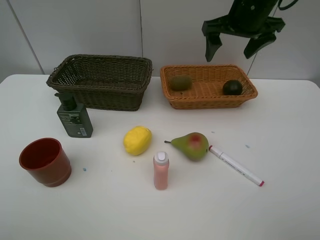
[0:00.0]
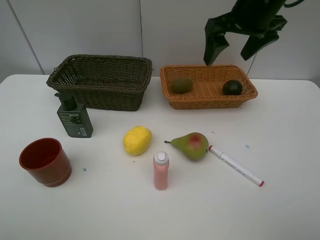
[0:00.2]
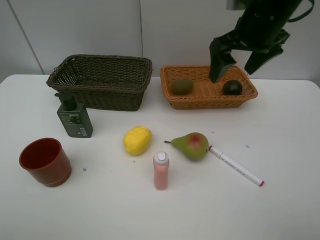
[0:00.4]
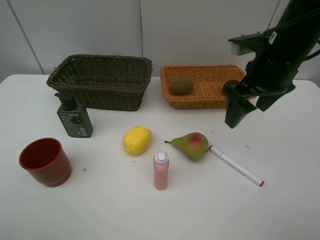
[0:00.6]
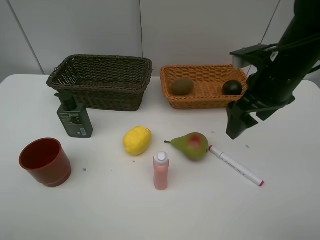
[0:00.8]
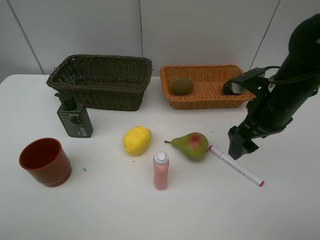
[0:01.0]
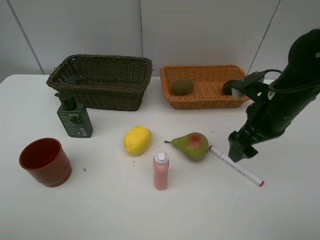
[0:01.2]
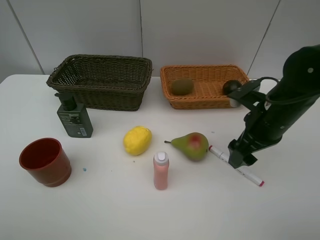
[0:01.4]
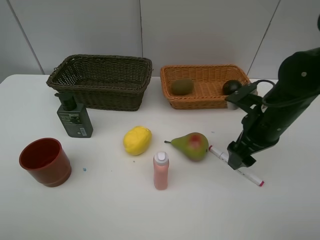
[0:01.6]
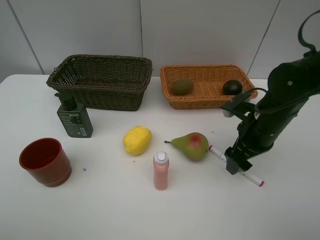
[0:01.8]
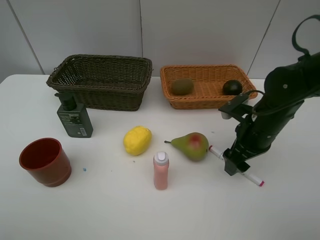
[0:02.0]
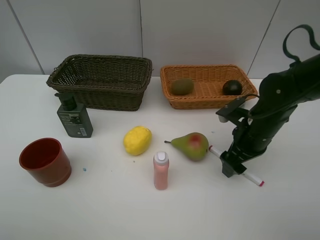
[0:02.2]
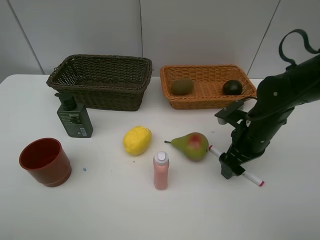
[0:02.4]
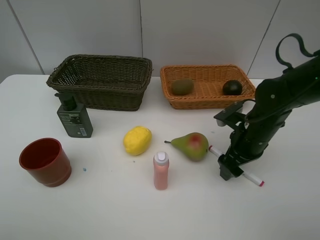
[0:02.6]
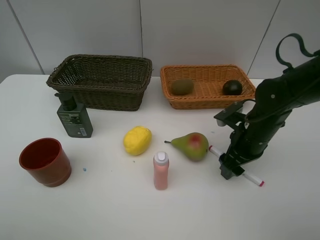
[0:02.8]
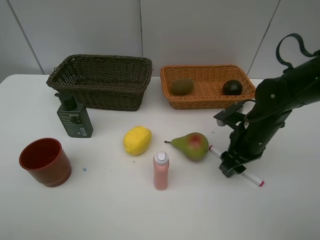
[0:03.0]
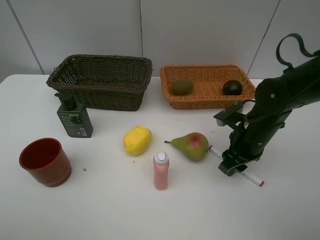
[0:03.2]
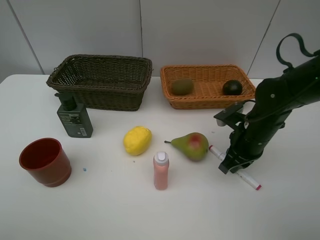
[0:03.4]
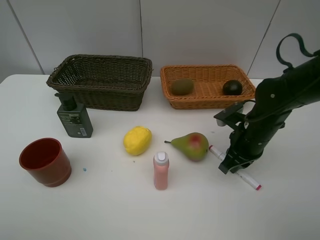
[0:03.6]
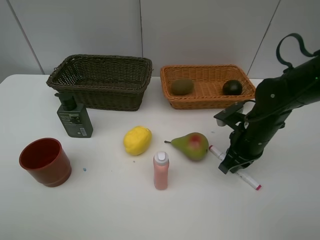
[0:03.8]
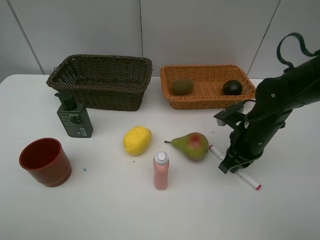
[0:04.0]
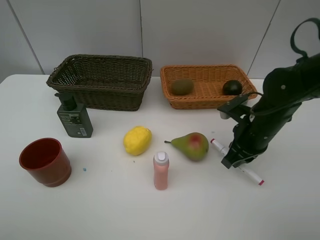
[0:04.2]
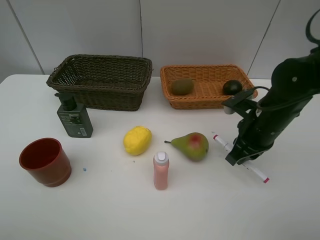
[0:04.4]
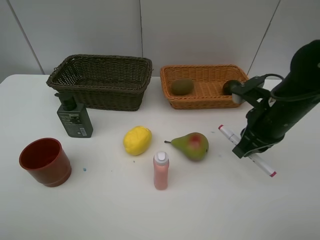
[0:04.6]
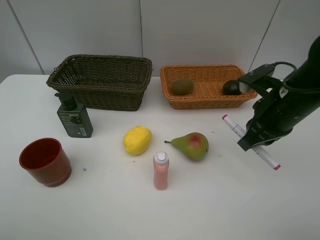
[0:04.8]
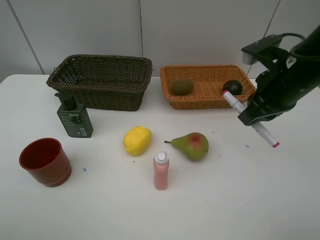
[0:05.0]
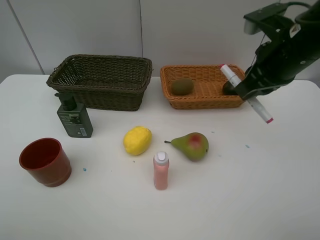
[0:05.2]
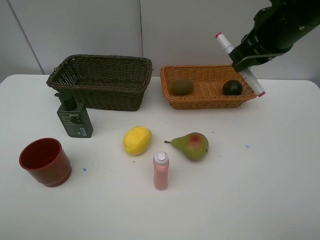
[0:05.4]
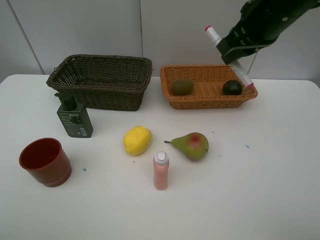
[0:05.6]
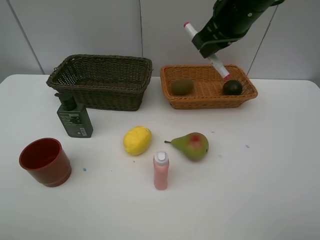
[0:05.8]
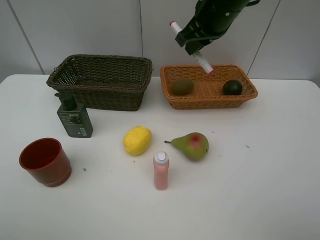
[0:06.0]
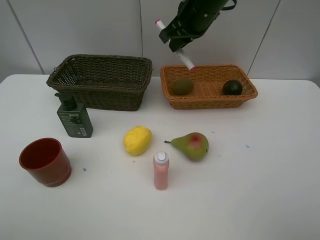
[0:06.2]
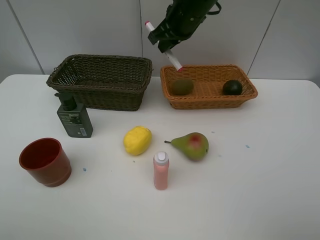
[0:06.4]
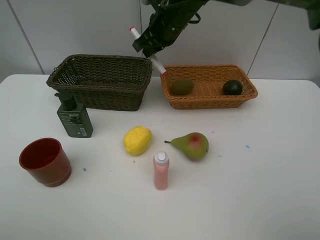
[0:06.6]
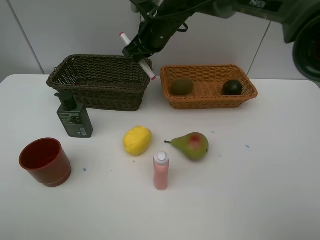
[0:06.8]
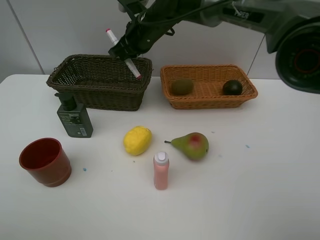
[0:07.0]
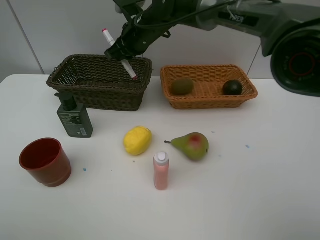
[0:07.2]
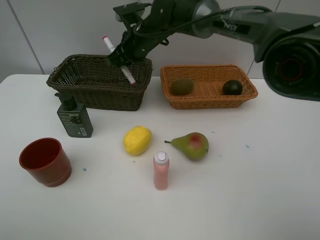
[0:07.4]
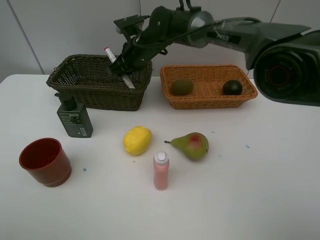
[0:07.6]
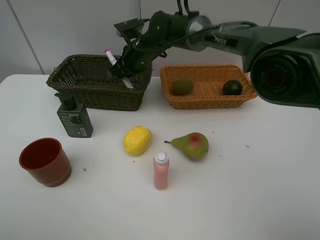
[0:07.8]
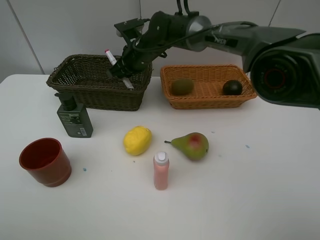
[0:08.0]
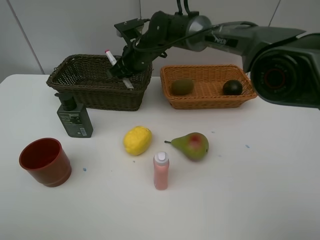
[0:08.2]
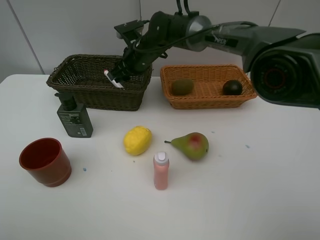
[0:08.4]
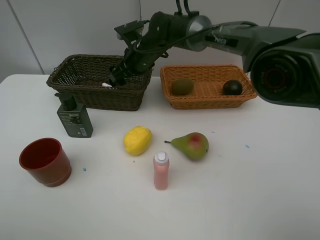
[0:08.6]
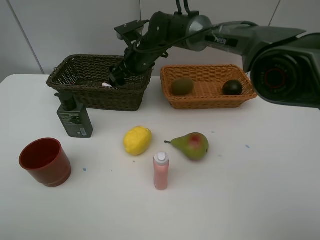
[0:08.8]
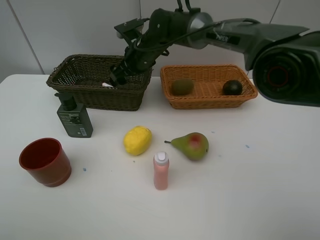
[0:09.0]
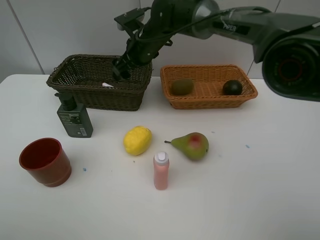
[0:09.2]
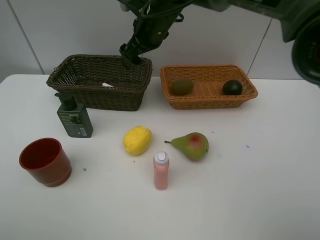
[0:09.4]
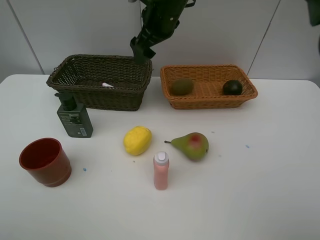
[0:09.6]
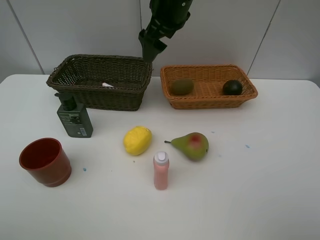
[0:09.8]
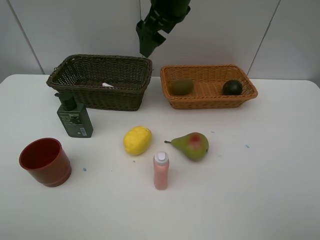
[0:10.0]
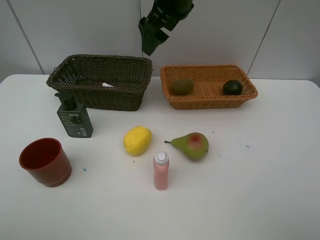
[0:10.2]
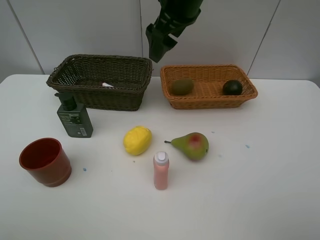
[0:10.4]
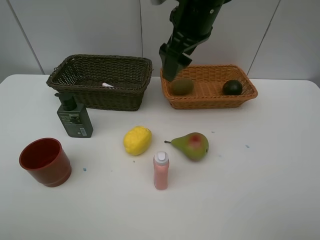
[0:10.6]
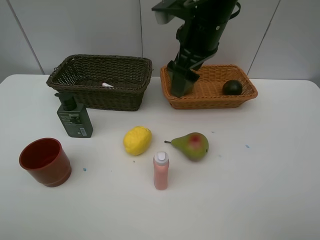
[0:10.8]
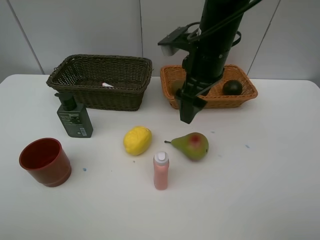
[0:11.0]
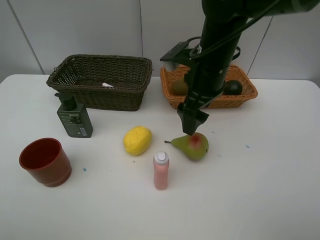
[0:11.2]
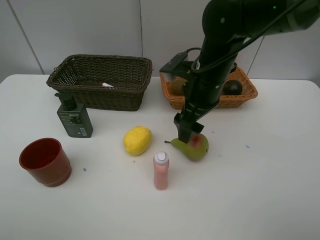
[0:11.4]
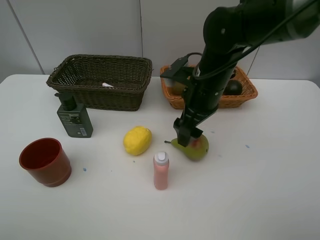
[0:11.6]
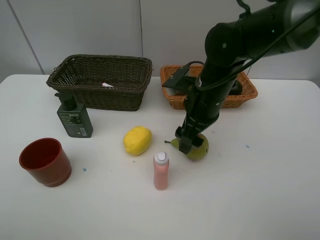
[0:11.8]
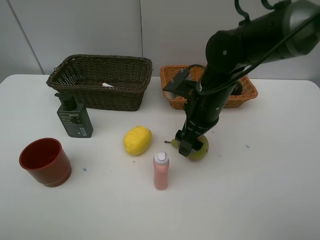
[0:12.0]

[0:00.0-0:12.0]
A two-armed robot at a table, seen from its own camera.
Task of the whole recording: Place multiple objects separately in different baskets.
Step, 0:00.0 to 0:04.4: Pick up the red cup with right gripper.
Step, 0:04.6 to 0:09.0: Place the red cup in the dark basket with right gripper.
0:00.0 to 0:01.6: The right gripper heads downward and backward, covering approximately 20 cm.
0:01.6 to 0:03.0: The right gripper goes approximately 5 cm downward, and closes its fingers.
0:03.0 to 0:04.4: The right gripper closes its fingers.
0:04.4 to 0:06.0: The right gripper is displaced upward, forward and to the left by roughly 20 cm.
0:06.0 to 0:07.6: The right gripper shifts some 20 cm to the left, downward and forward.
0:07.6 to 0:09.0: The right gripper opens.
0:09.0 to 0:10.4: The right gripper shifts approximately 20 cm upward, backward and to the right.
0:10.4 to 0:12.0: The right gripper travels downward and backward by roughly 20 cm.

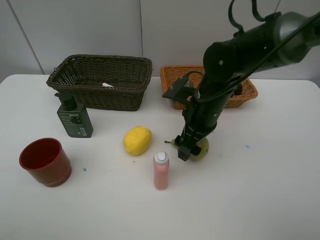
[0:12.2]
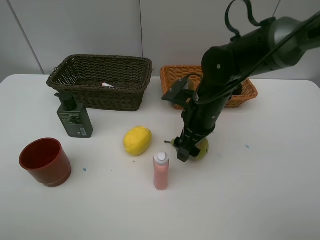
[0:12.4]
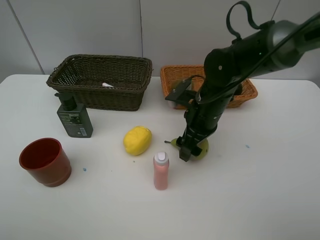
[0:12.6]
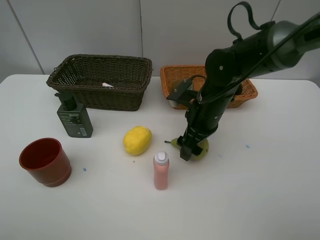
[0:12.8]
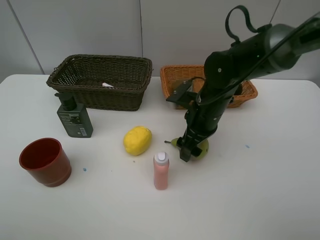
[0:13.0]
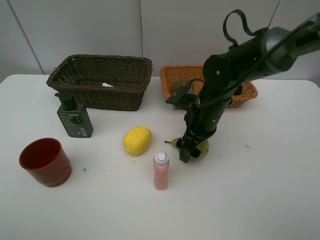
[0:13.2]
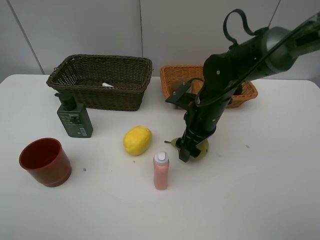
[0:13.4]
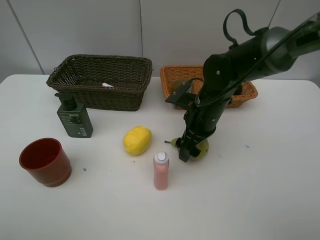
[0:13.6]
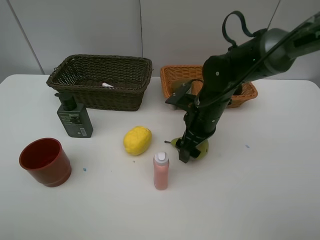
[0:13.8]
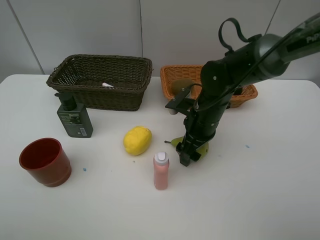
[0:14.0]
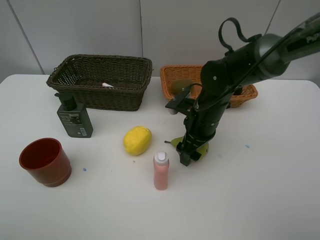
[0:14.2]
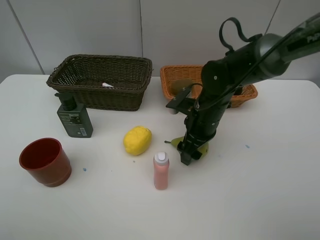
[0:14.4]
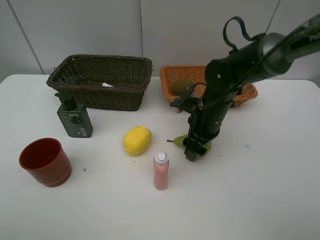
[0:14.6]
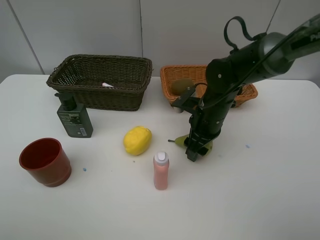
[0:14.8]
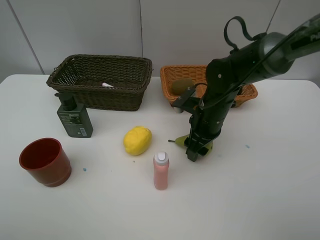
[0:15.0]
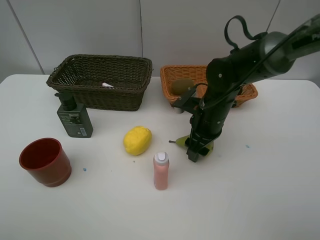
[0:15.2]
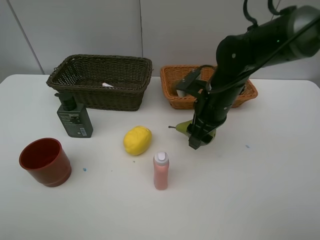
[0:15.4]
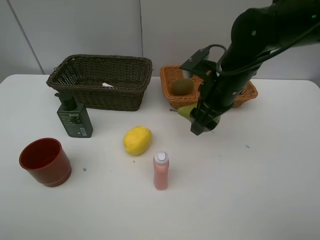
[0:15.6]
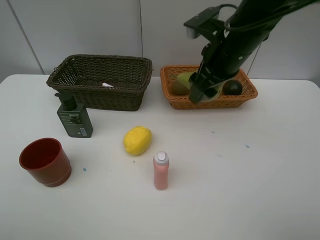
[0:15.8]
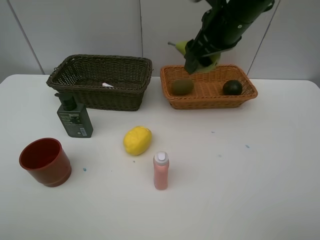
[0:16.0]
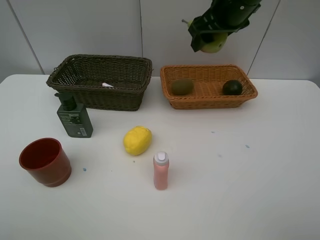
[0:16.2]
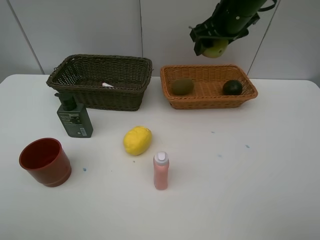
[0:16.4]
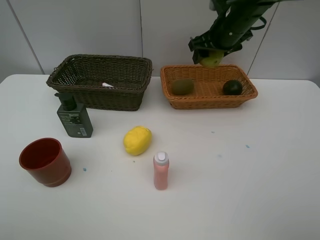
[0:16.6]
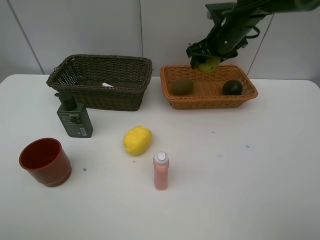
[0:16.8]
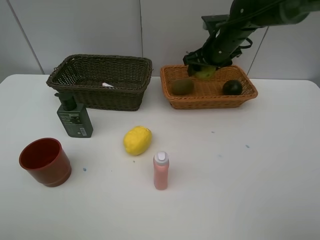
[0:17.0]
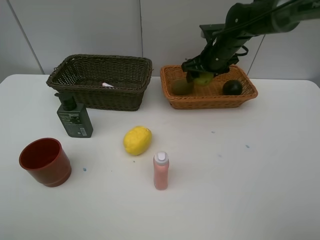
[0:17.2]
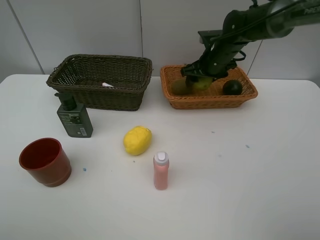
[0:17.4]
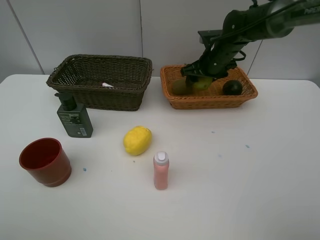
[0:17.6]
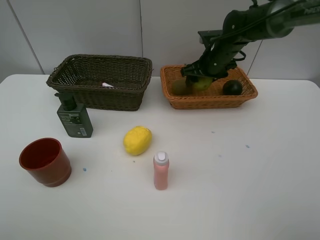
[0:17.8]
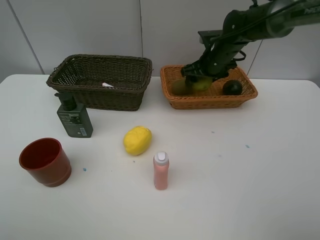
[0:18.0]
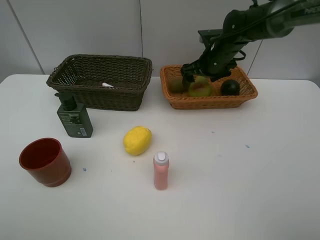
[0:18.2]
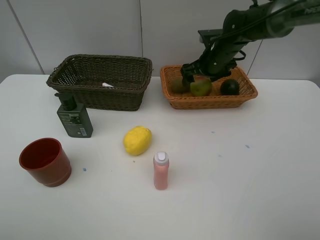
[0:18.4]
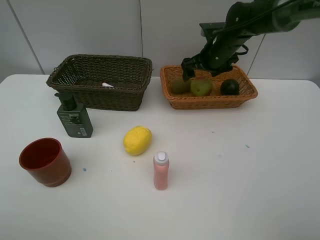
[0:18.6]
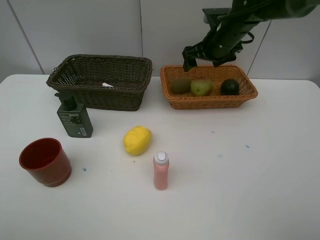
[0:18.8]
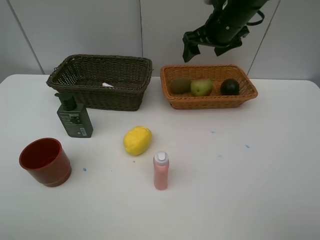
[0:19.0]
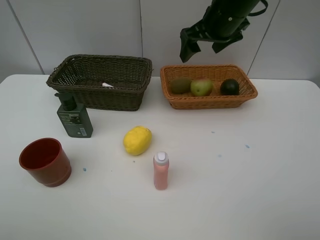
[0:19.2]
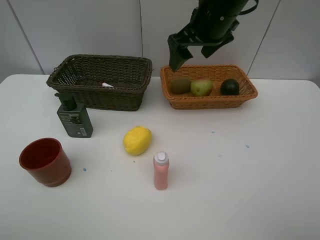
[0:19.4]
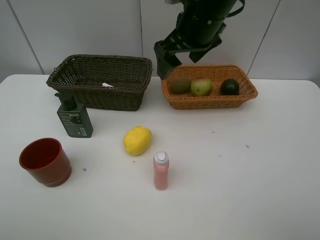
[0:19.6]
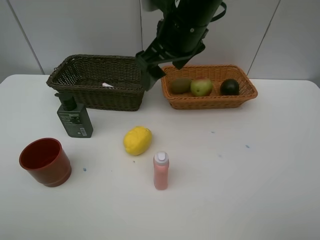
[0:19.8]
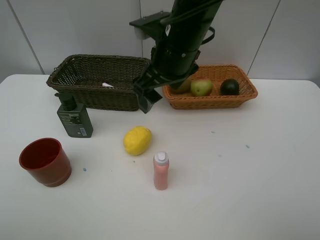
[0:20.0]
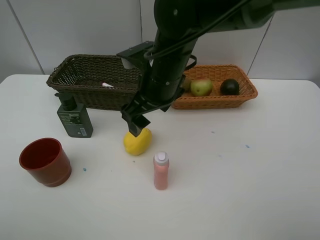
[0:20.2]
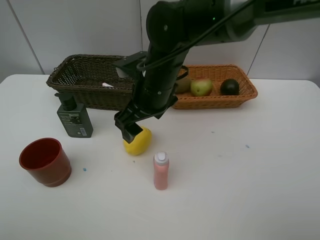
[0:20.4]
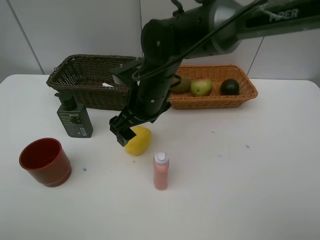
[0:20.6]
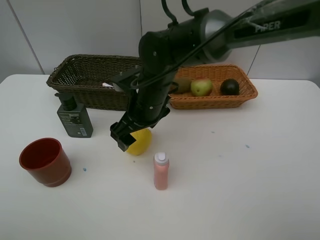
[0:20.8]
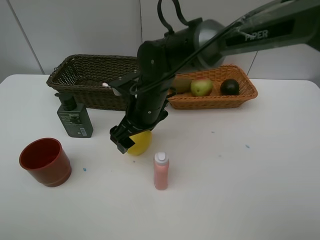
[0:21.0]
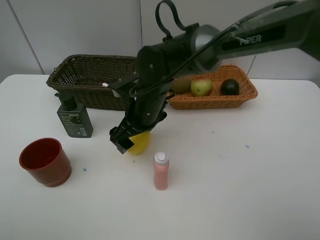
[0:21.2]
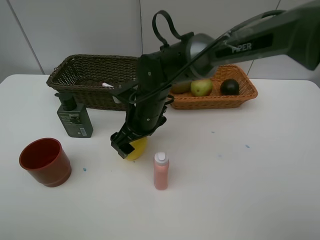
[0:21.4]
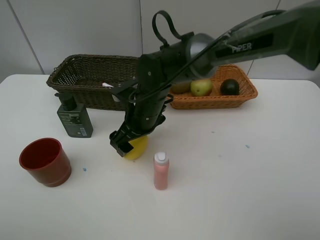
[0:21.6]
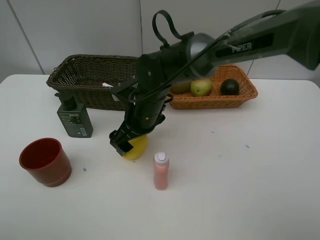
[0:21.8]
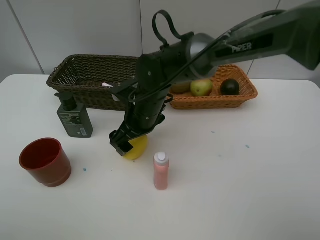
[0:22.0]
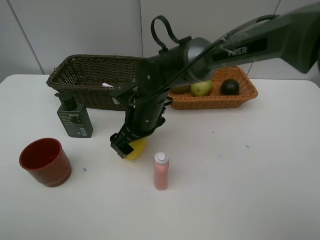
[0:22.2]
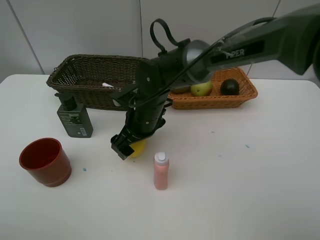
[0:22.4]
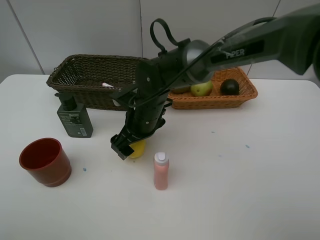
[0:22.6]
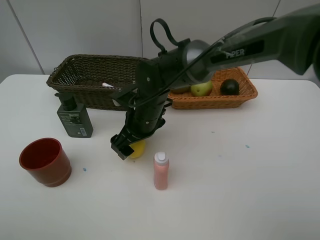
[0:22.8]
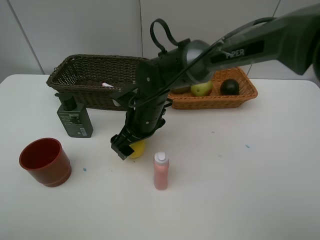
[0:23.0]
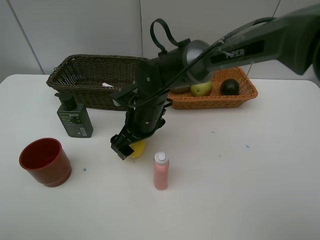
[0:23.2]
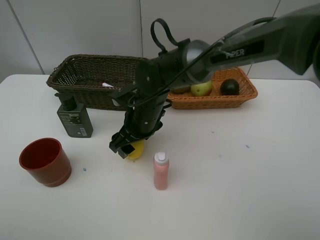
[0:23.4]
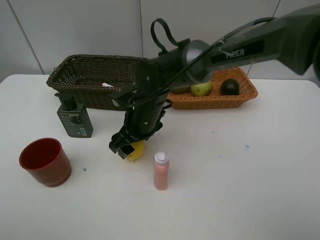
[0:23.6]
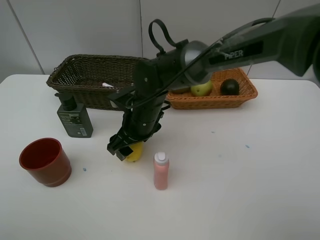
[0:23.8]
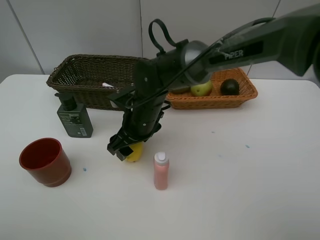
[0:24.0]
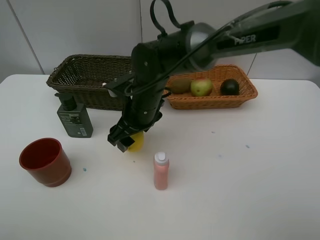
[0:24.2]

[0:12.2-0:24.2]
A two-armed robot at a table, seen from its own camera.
Task of the whole recording: Place multiple objects separately in different baskets.
Step, 0:12.2 to 0:15.2: Pick up the pear with right gripper.
Step, 0:15.4 to 0:18.6: Place the pear in the light basket with right gripper.
0:12.2 to 0:15.2: The grippers move only a little.
0:15.2 to 0:16.6: The right gripper is displaced upward and forward by roughly 20 cm.
0:16.6 to 0:18.2: The right gripper heads downward, covering some 10 cm.
0:18.2 to 0:19.8: The right gripper goes roughly 20 cm backward, upward and to the left.
0:19.8 to 0:21.2: The right gripper is displaced downward by about 15 cm.
0:21.2 to 0:24.2: The grippers make only small movements.
